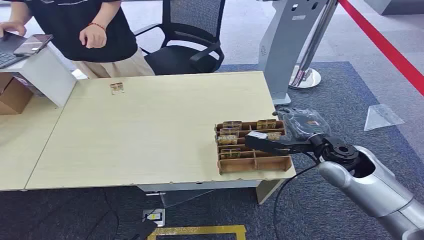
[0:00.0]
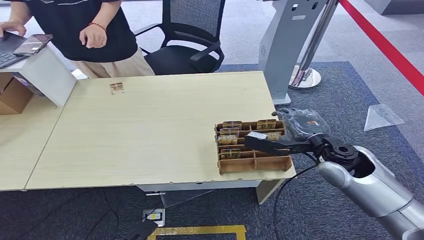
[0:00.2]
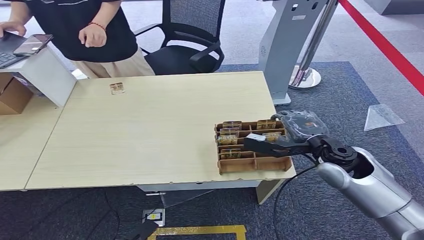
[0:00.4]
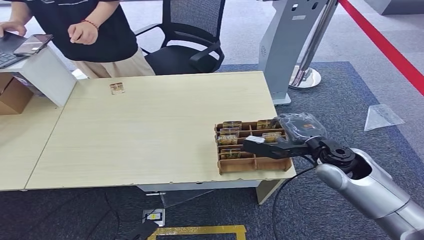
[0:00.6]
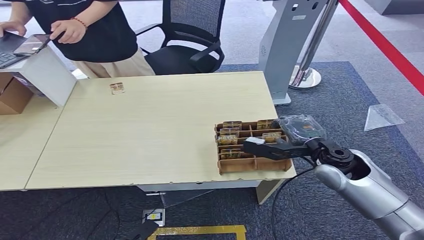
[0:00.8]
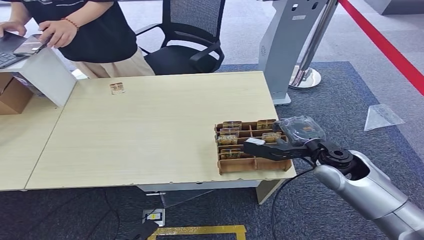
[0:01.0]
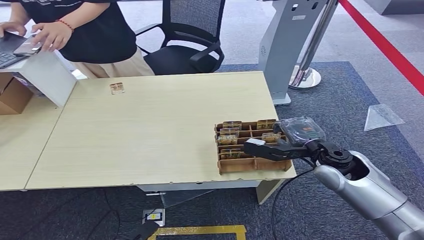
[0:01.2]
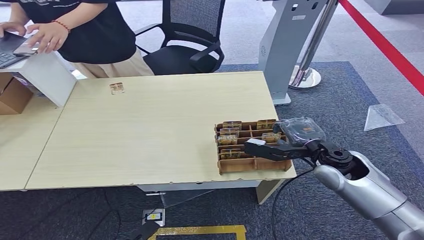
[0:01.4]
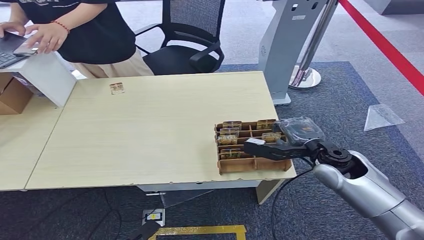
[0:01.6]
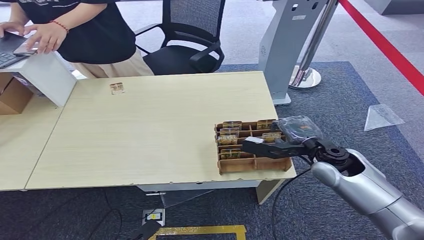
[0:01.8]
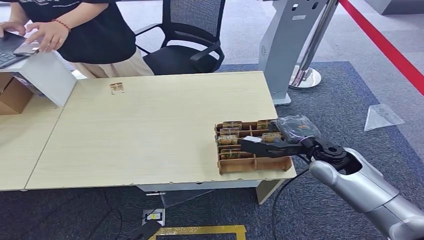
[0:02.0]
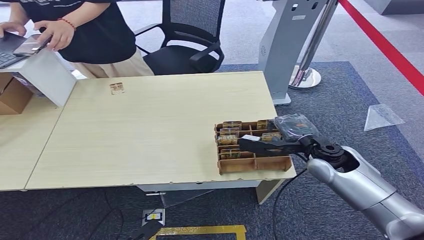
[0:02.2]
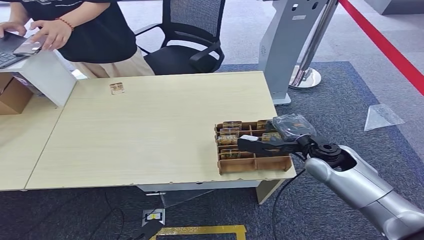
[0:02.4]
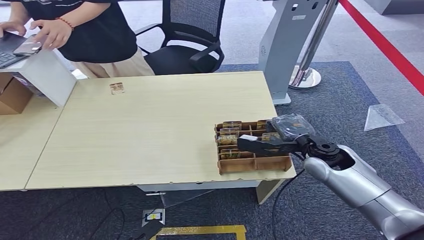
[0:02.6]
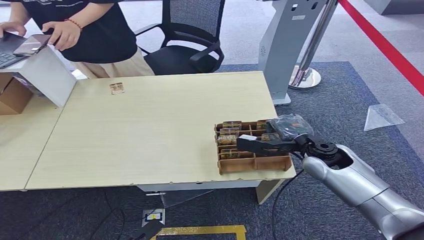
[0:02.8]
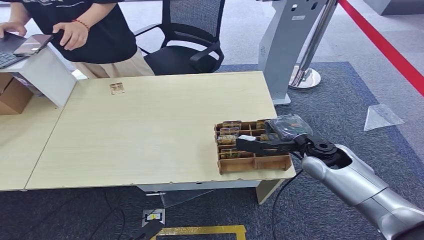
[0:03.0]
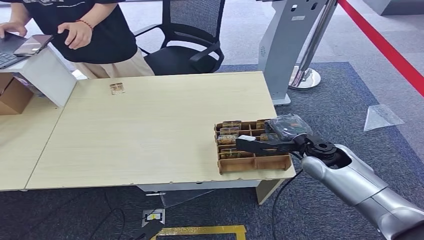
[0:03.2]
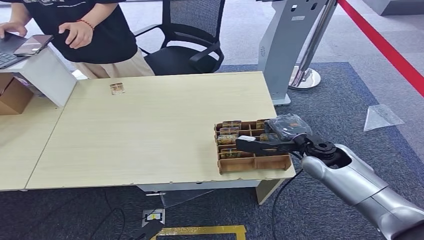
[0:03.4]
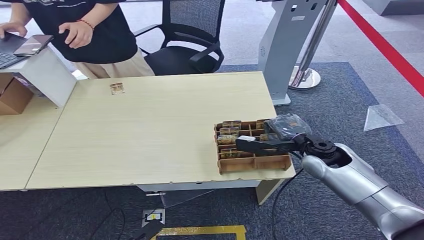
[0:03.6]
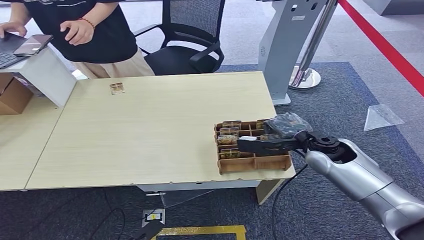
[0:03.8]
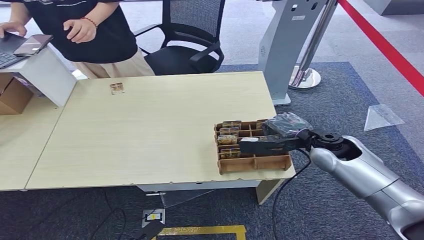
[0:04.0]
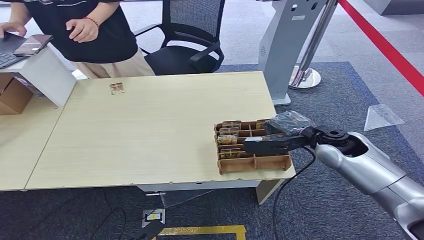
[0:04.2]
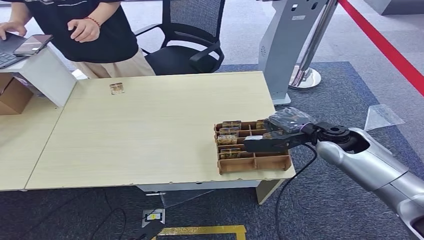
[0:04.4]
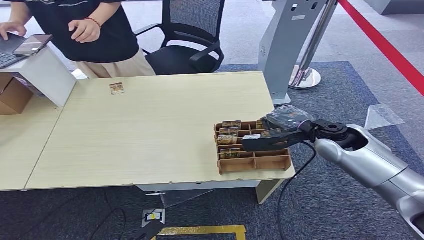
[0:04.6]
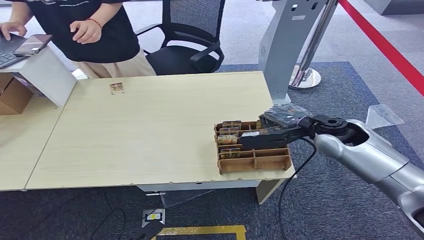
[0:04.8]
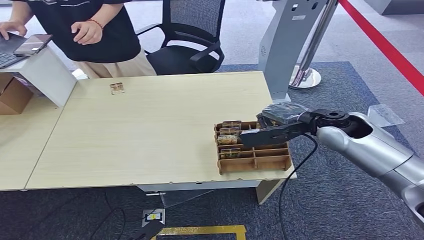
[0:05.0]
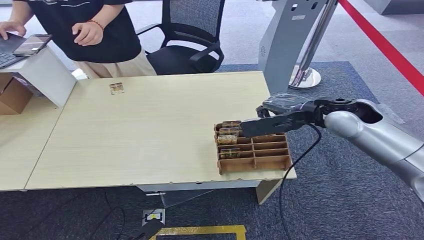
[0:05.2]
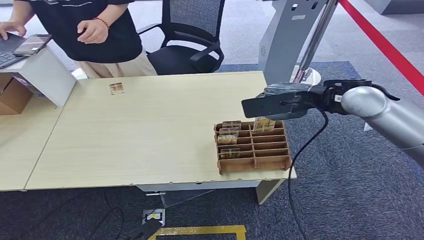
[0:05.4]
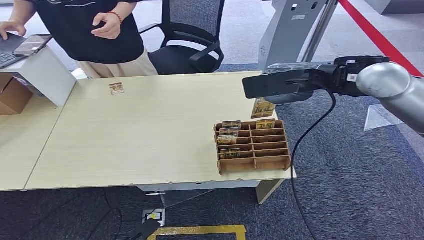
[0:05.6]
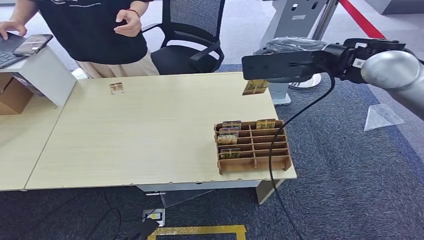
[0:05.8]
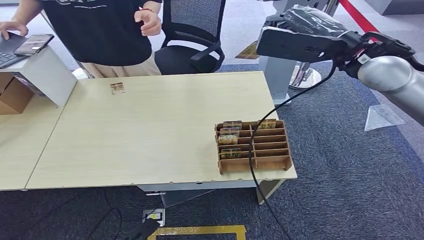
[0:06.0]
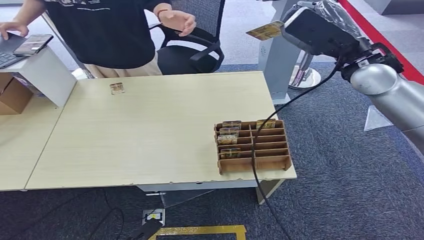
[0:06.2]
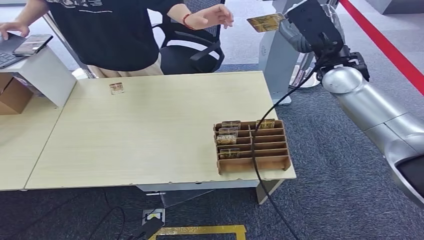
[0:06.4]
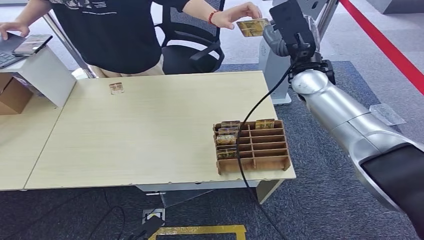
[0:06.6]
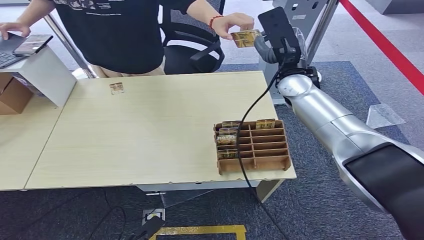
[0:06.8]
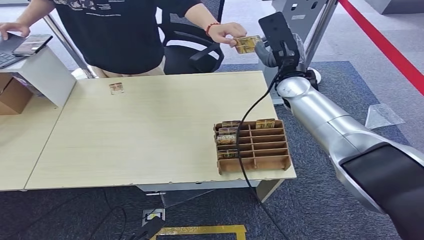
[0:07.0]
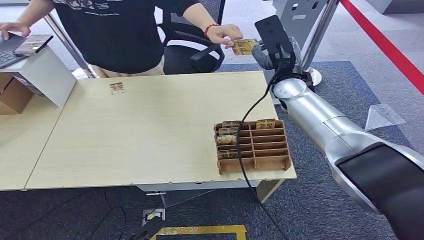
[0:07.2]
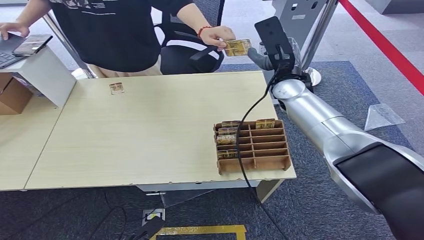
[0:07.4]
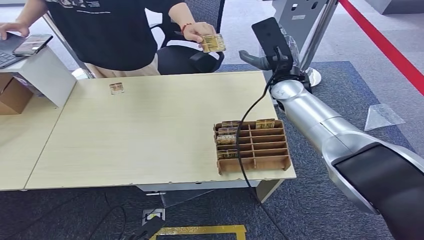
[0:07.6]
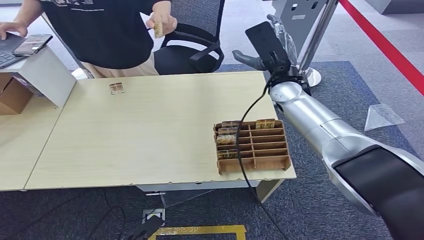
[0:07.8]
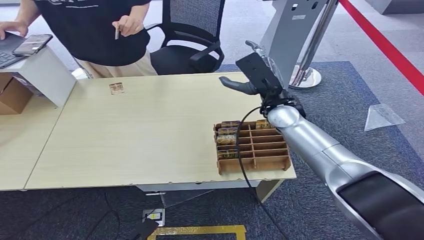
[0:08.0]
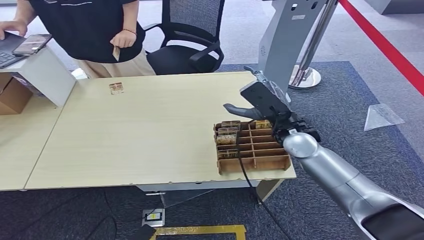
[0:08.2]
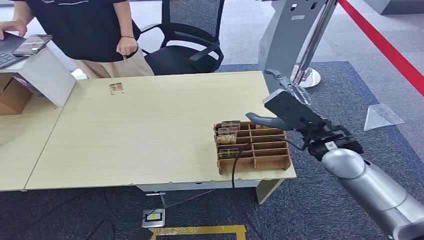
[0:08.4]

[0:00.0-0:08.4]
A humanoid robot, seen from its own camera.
Step, 0:00.0 to 0:05.4: Pick up the key card from the card box.
Step, 0:05.6 to 0:08.4: Hand the key card to the target.
0:01.4 to 0:04.2: The hands make only small movements.
0:04.2 to 0:05.6: The right hand shifts about 20 cm upward.
